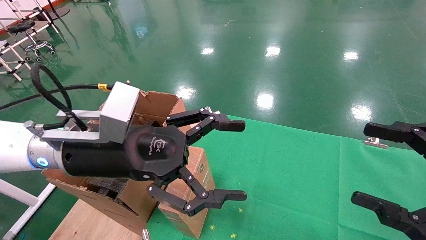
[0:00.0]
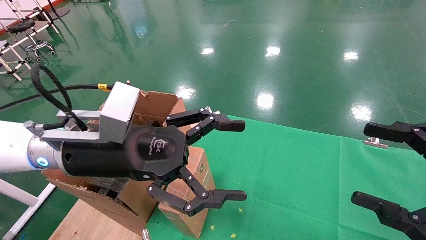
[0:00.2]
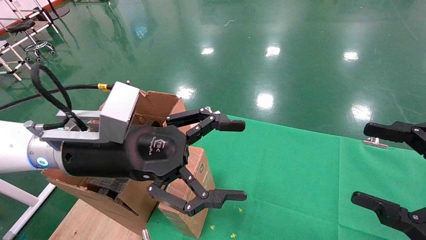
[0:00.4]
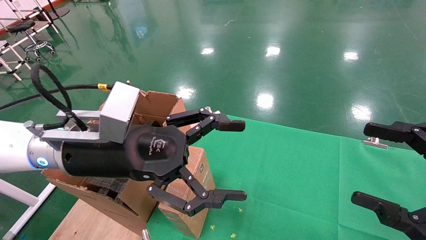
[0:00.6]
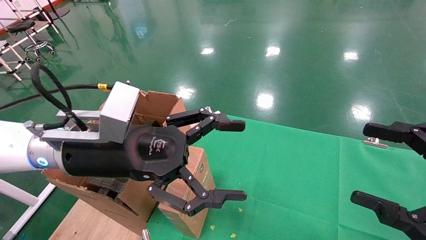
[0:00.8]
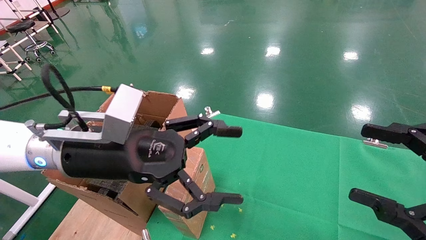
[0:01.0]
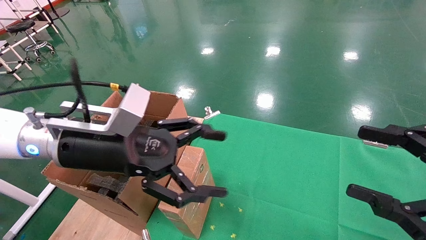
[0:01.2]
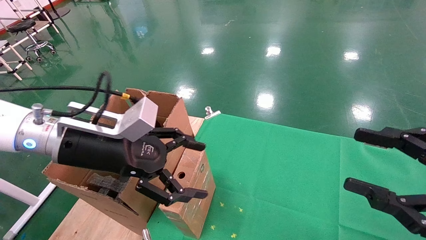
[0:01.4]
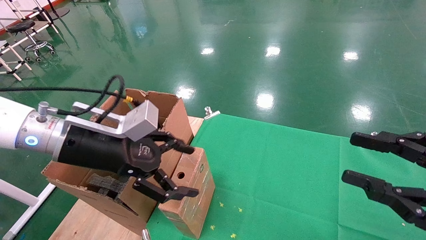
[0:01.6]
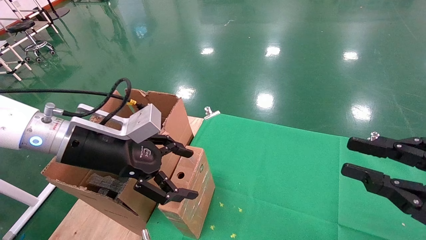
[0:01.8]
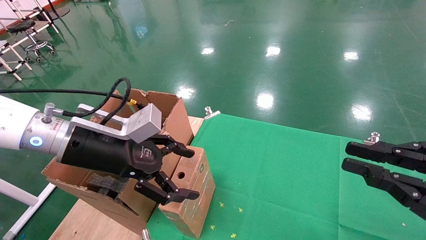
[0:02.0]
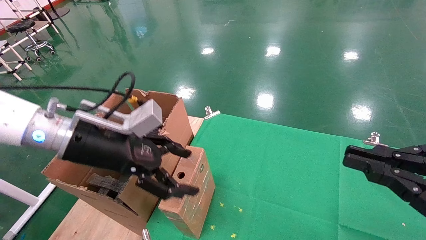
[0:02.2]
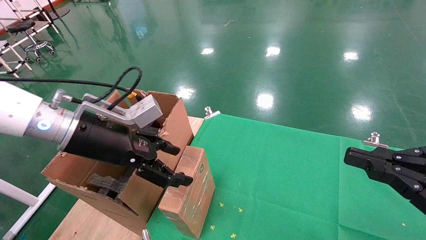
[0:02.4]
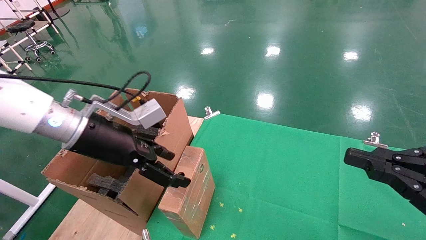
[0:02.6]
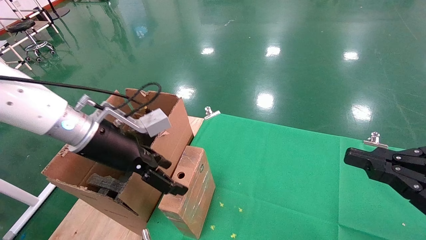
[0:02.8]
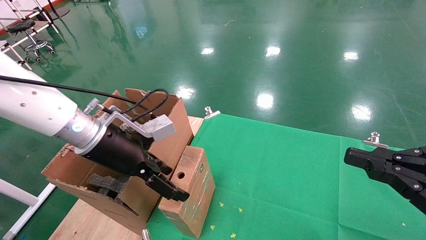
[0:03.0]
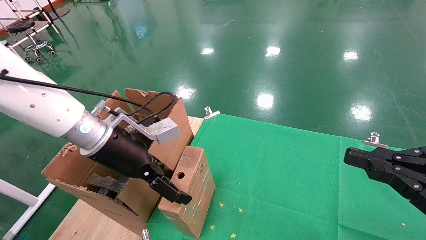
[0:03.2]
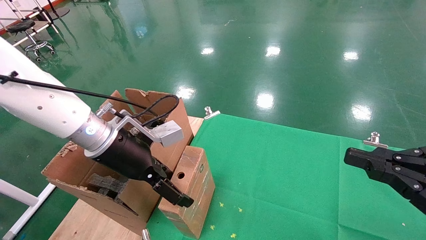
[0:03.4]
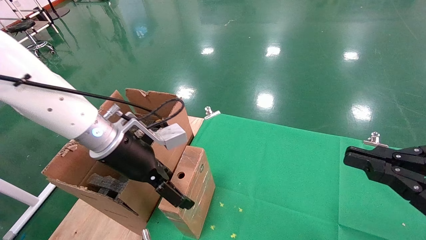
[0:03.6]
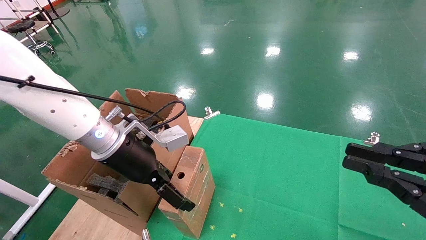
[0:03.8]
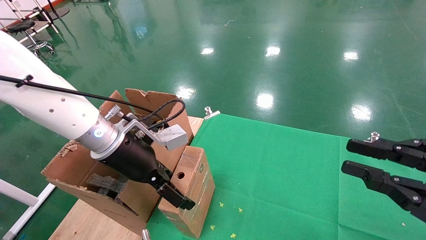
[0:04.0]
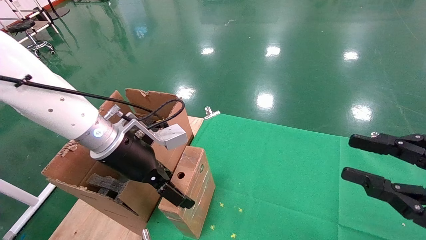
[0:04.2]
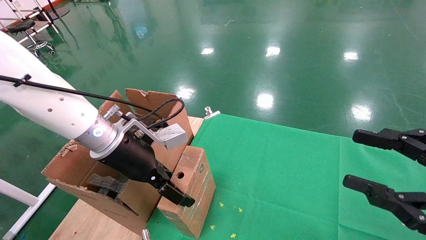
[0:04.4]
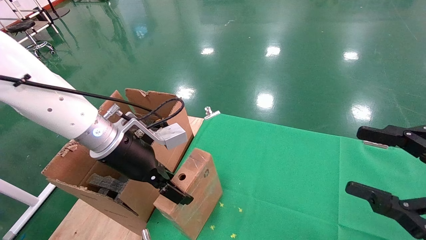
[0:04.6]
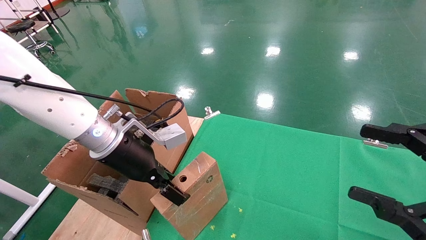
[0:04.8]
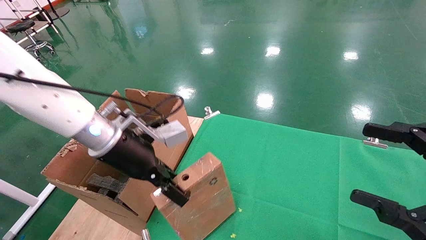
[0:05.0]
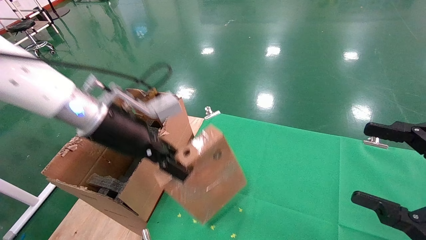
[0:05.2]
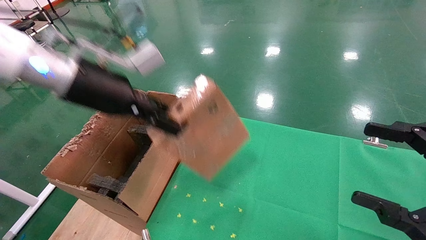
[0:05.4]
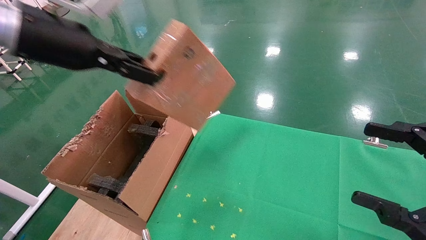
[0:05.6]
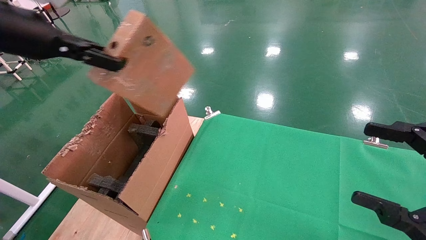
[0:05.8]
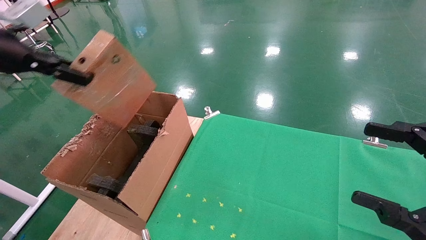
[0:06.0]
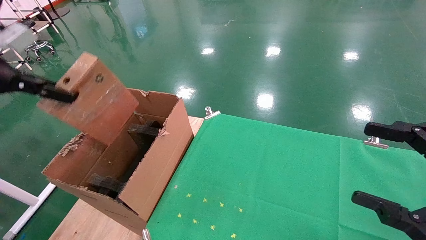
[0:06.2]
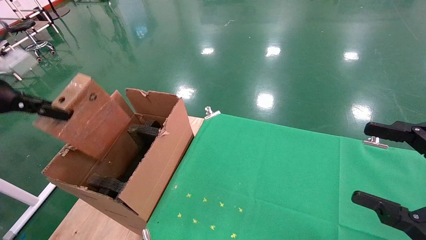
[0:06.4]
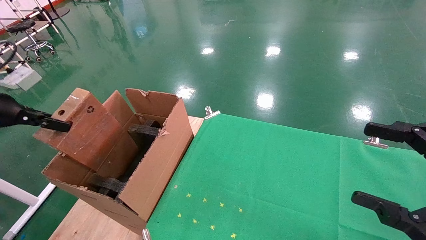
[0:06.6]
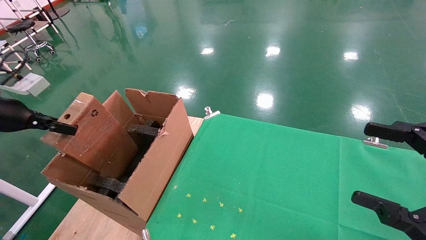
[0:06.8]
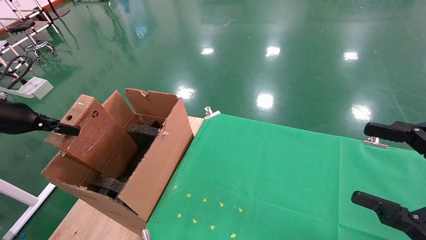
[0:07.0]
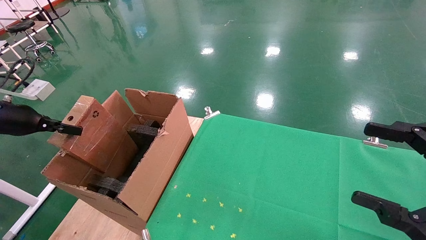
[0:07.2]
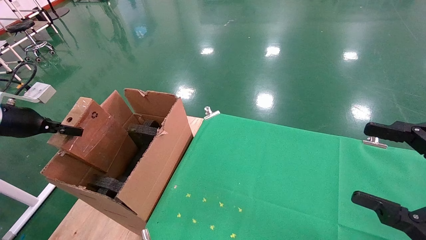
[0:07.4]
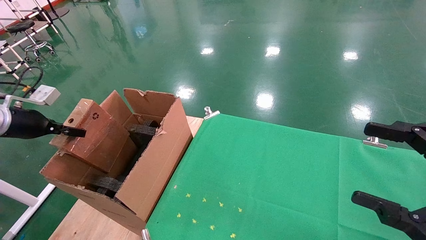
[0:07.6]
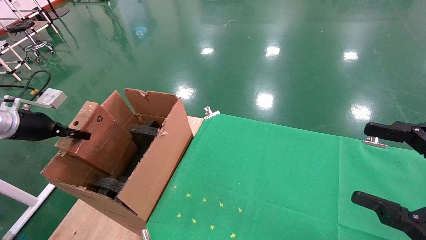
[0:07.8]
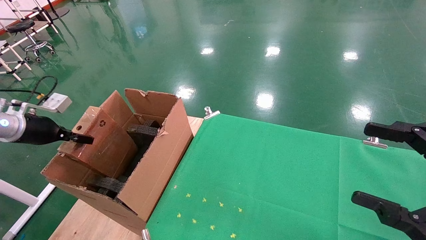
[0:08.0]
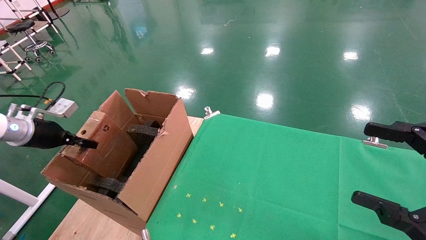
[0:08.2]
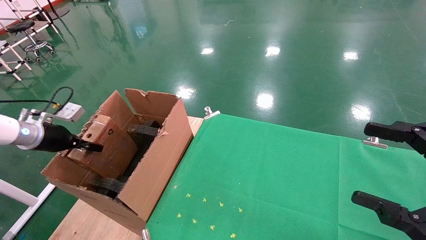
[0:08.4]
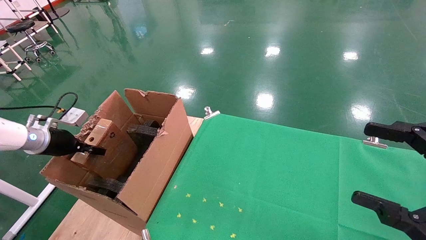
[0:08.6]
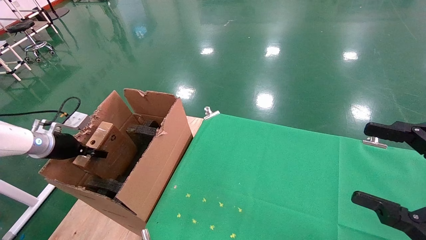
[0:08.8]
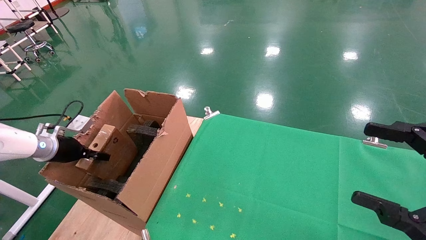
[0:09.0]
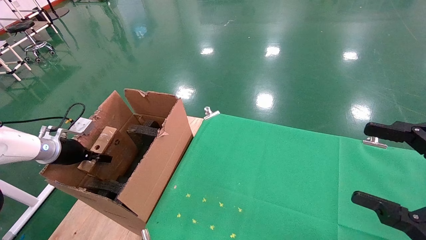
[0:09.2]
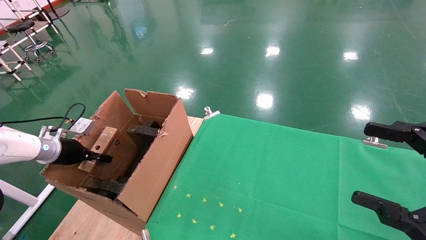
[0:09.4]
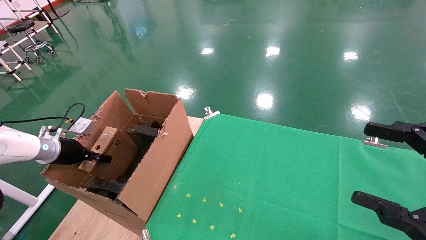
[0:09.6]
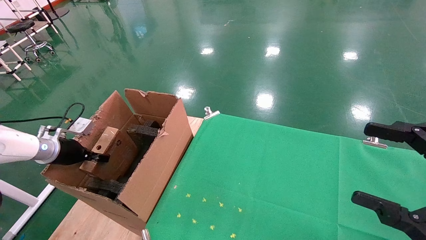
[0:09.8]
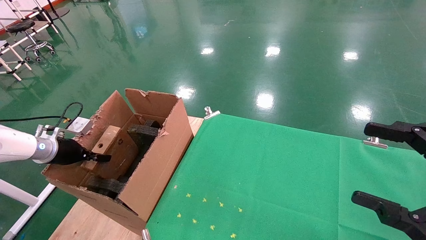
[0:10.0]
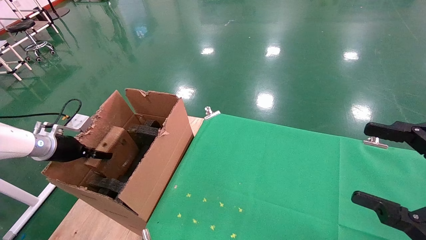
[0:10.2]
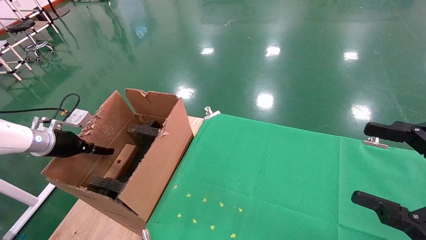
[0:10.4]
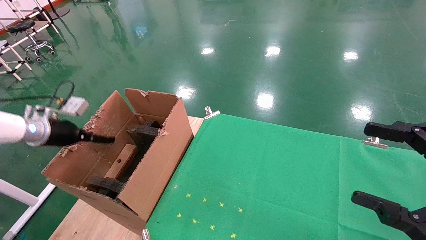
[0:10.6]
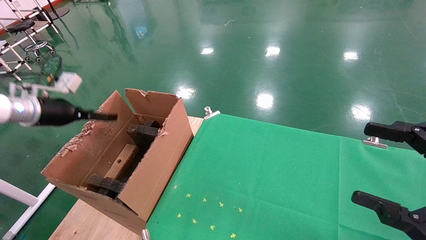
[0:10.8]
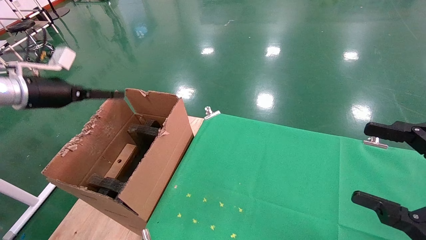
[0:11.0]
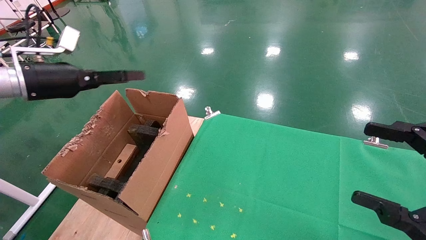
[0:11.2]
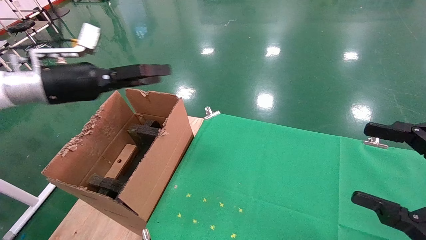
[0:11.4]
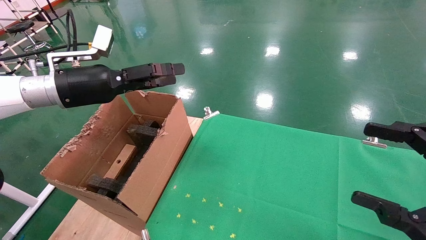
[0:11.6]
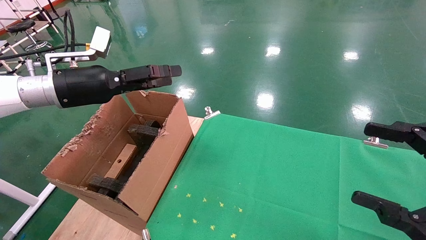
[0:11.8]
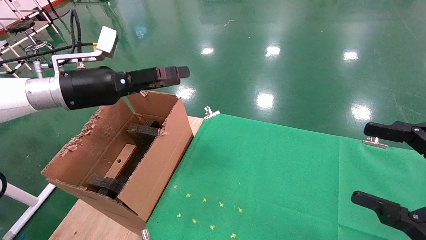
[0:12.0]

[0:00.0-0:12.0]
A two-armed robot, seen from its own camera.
Task of the whole recording: using a robotic arm to pick up a cardboard box and palace it the carton.
Step, 0:01.0 to 0:04.6: Pick up the mouse and the power cord paper box.
Step, 0:04.8 to 0:11.2: Place the mouse and the power cord paper box into the container.
0:00.0 to 0:01.6: The right gripper closes.
0:01.6 to 0:03.0: The right gripper closes up.
0:03.0 to 0:04.4: The right gripper opens.
0:04.4 to 0:06.0: The left gripper goes roughly 25 cm to the left and upward, and closes its fingers, while the right gripper opens its fingers.
0:06.0 to 0:07.6: The left gripper goes some 20 cm downward and to the left.
0:07.6 to 0:09.0: The left gripper is displaced downward and forward by about 10 cm.
0:09.0 to 0:10.4: The left gripper opens its fingers.
0:10.4 to 0:12.0: The left gripper heads to the right and upward, covering about 20 cm, and opens up.

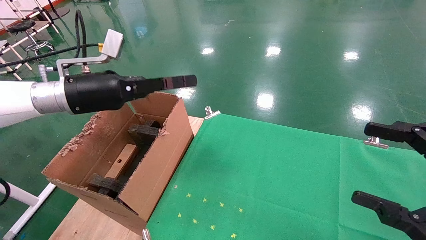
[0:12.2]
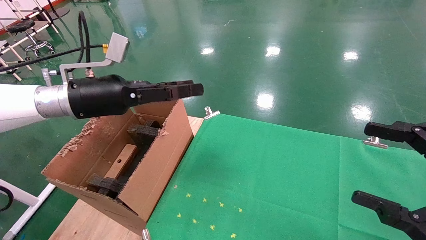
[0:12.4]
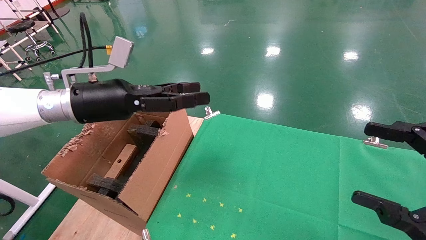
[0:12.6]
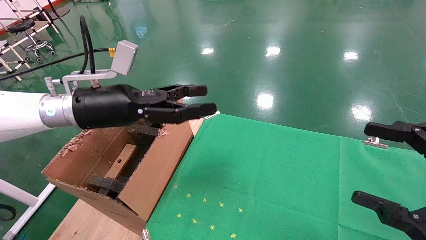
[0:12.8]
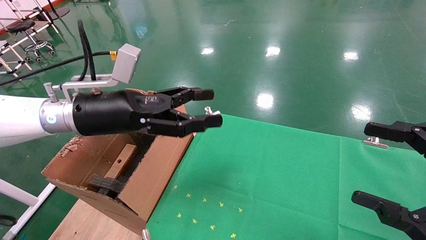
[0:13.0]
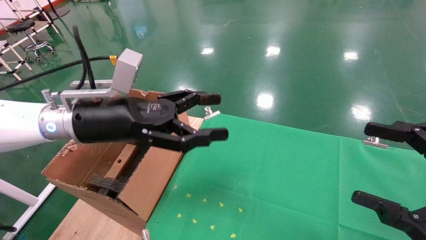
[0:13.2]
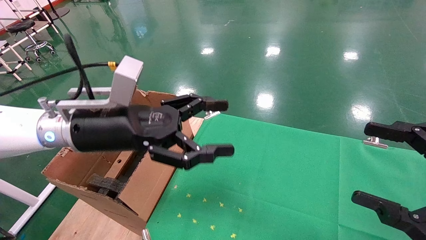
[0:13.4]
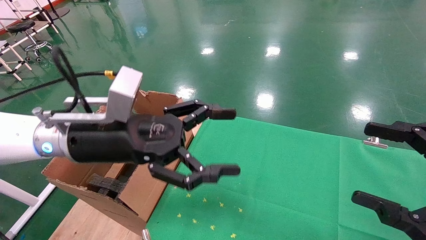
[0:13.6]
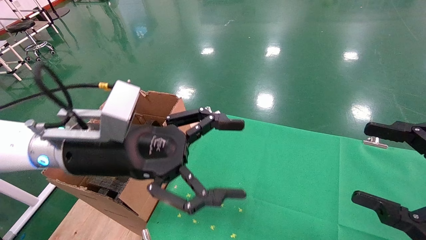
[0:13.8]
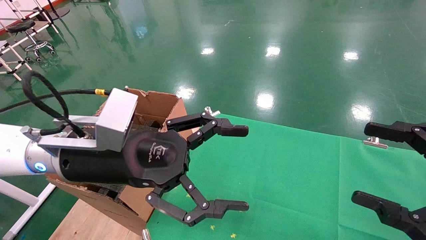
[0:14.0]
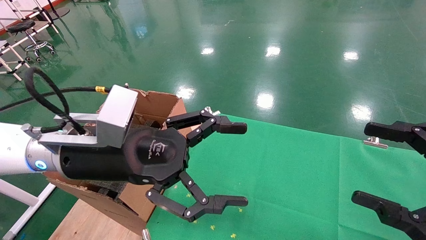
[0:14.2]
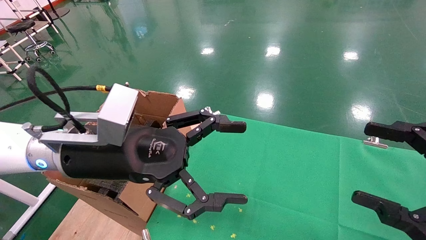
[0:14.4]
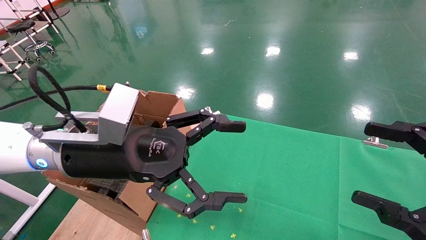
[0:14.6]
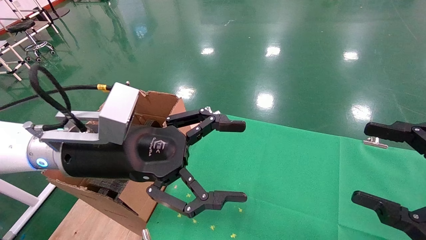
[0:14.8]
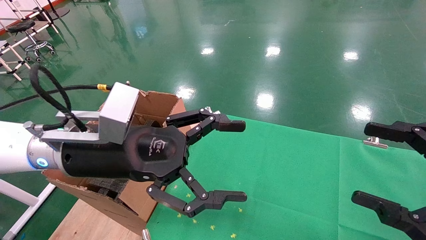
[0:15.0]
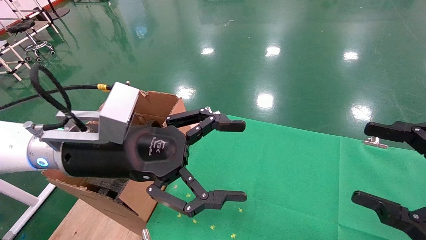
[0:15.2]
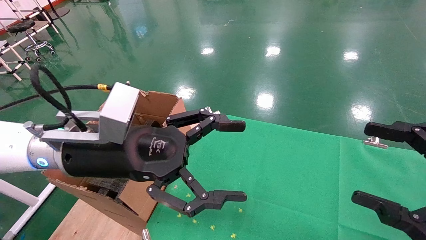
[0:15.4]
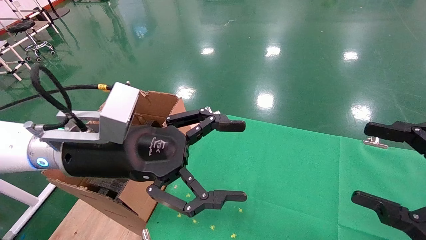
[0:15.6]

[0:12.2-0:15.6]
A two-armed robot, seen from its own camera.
Task of the whole recording: using a robotic arm to pick up a cardboard box and palace it the carton.
0:12.2 to 0:13.8: The left gripper heads to the right and backward, covering about 15 cm.
0:13.8 to 0:15.6: Both grippers stay about where they are.

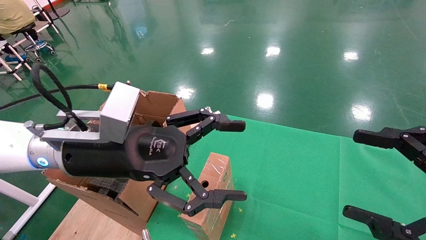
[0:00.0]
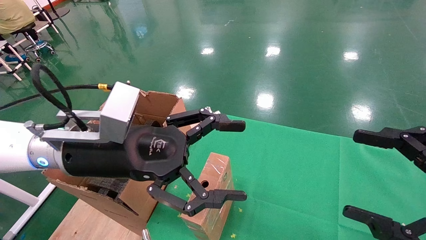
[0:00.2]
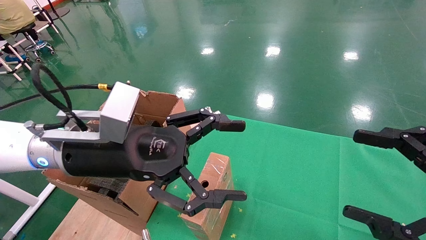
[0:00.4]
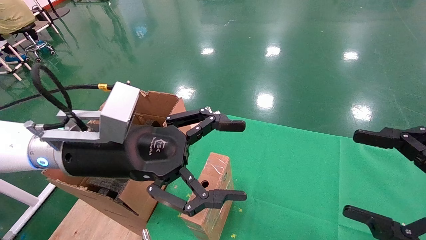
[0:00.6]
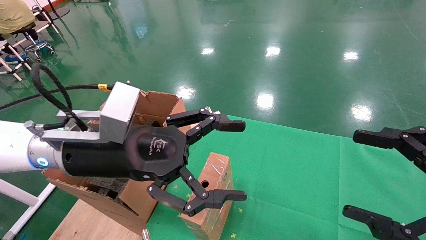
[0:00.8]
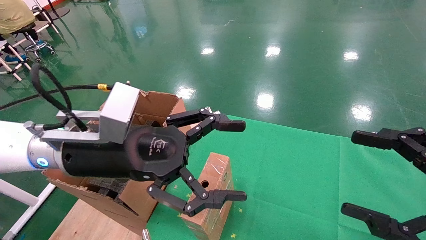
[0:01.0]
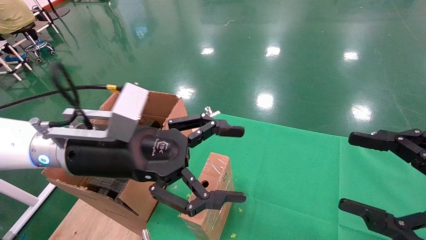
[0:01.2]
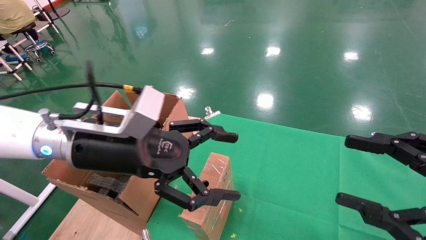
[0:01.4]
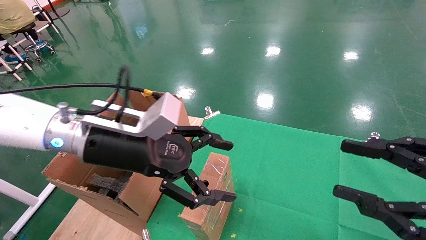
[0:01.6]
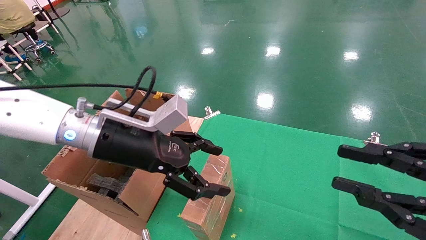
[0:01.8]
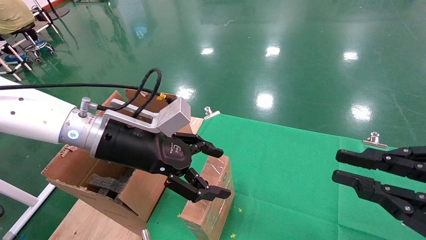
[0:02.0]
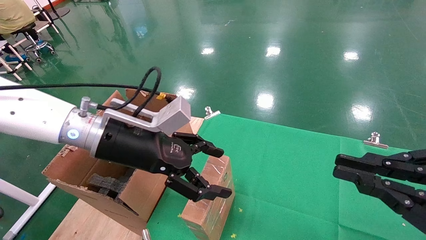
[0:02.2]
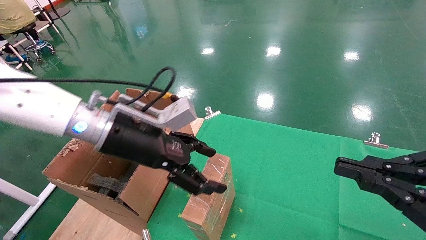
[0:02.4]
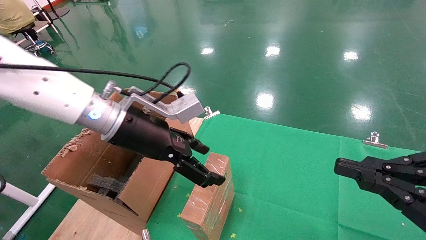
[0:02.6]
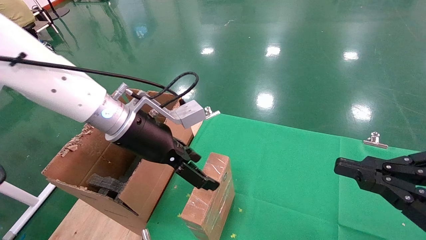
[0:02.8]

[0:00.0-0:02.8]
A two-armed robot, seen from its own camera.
Task of the whole recording: using a robotic arm to pick up a cardboard box and palace it the carton.
0:00.0 to 0:01.4: There are only small adjustments of the grippers.
0:01.4 to 0:02.8: The right gripper closes up, while the left gripper is displaced forward by some 5 cm.
